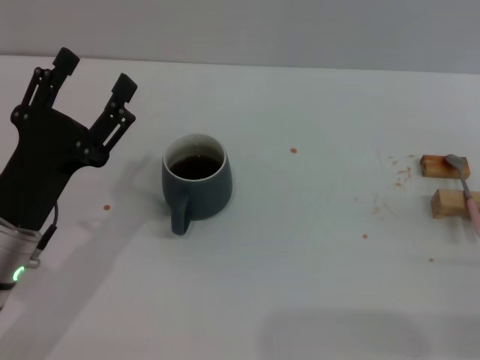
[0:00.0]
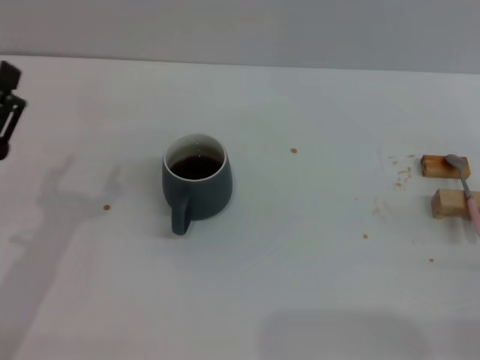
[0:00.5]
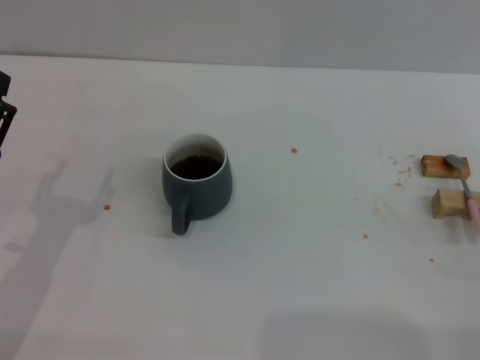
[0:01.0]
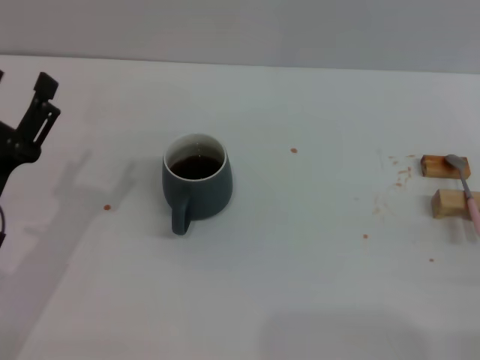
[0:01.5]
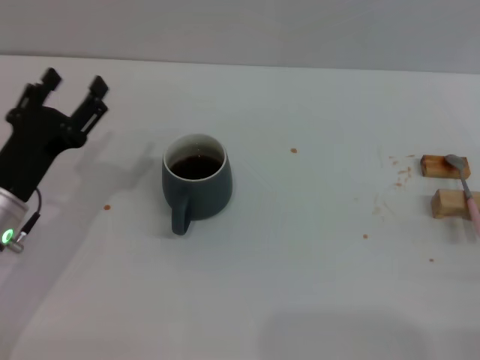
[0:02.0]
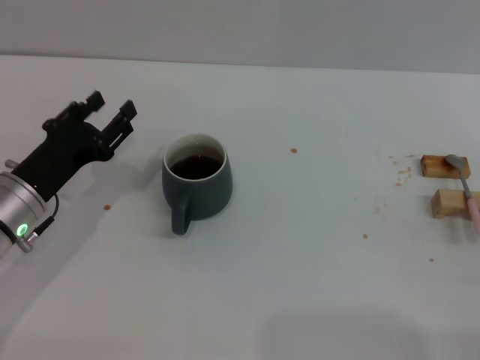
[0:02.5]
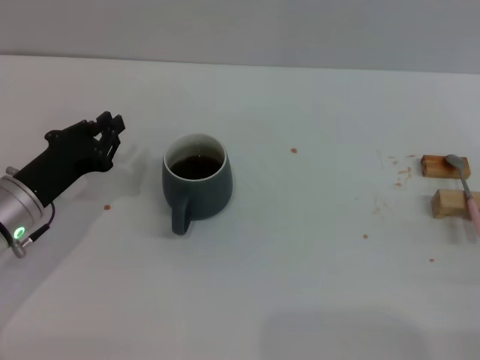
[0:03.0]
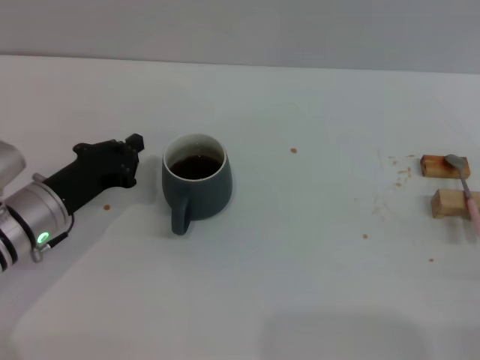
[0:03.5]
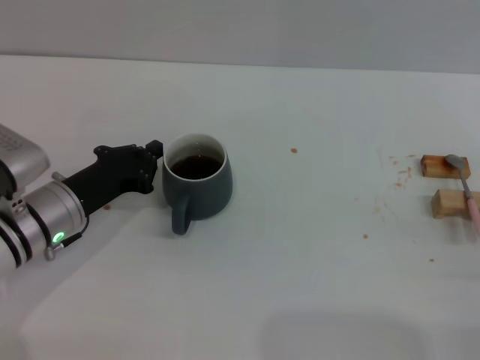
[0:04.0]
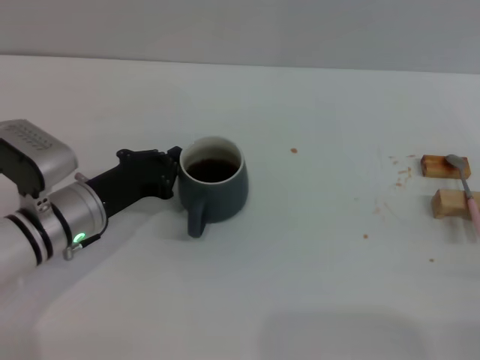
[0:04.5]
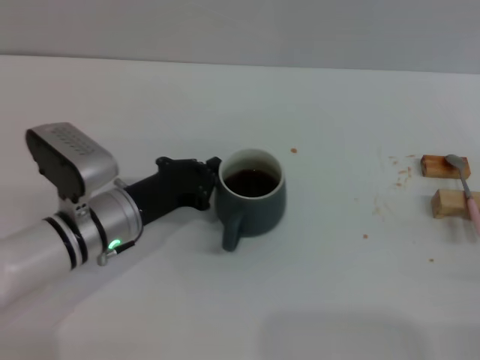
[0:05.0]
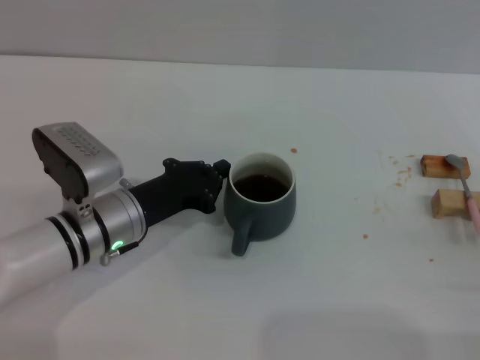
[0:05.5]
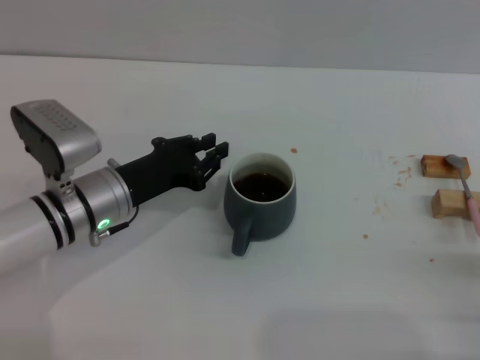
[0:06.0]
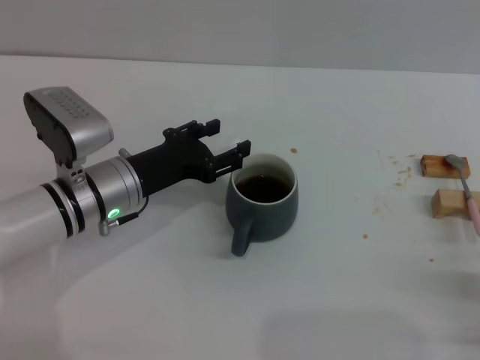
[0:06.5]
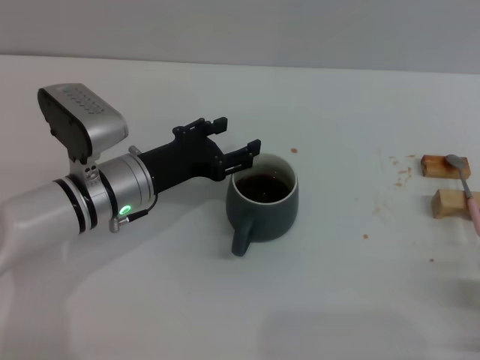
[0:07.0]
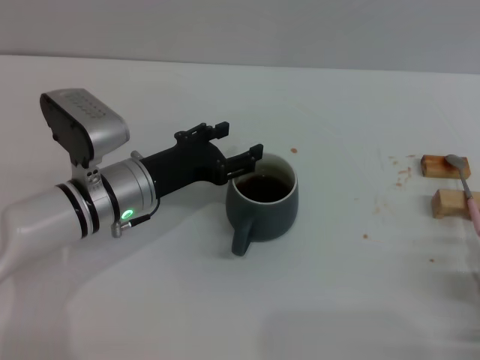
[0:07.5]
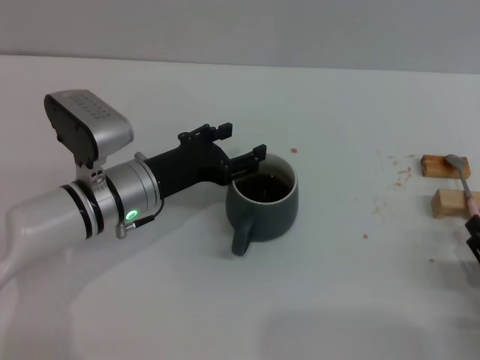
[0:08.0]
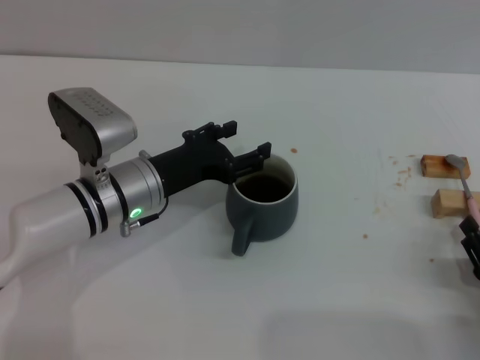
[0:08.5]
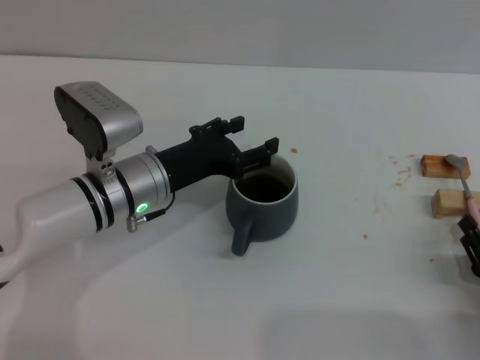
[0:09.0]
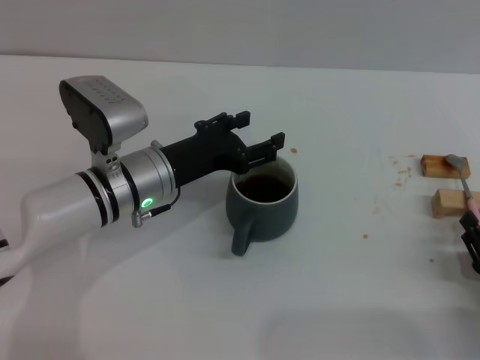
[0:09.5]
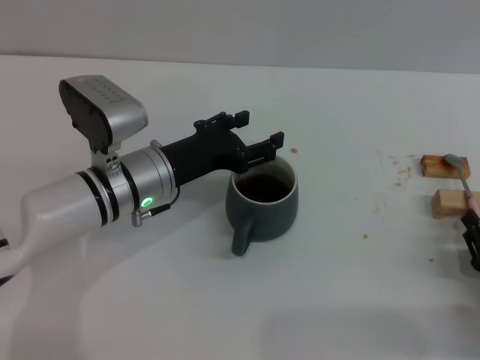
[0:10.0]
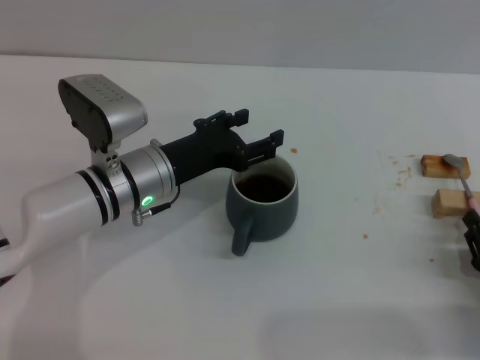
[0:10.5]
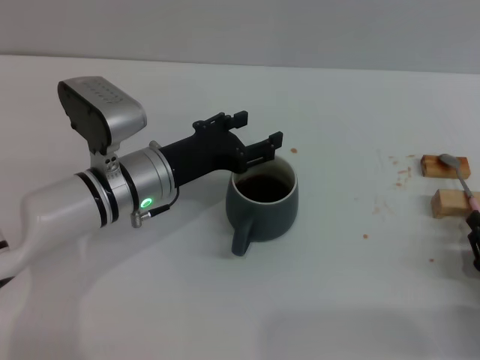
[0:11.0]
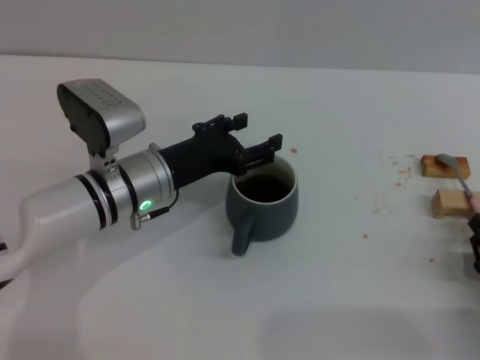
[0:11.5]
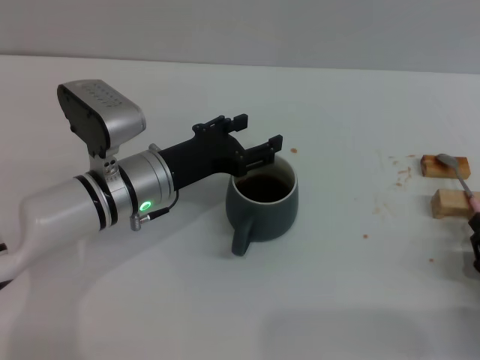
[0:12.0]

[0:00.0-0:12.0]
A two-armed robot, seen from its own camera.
Task of the whole recording: Move the grey cup to the center, lift the pink spoon, stir it three times in the cup, and put the spoon into the cup.
Step, 0:00.0 to 0:06.0: Move the cup with coffee to the center of view with the left gripper.
0:00.0 to 0:02.0: The left gripper ends up roughly 5 cm from where it was.
0:02.0 to 0:04.0: The left gripper shifts by about 5 cm, and closes up.
0:06.0 to 0:08.0: The left gripper opens its fingers.
0:08.0 to 0:10.0: The right gripper closes.
0:10.0 to 0:12.0: Neither gripper changes place.

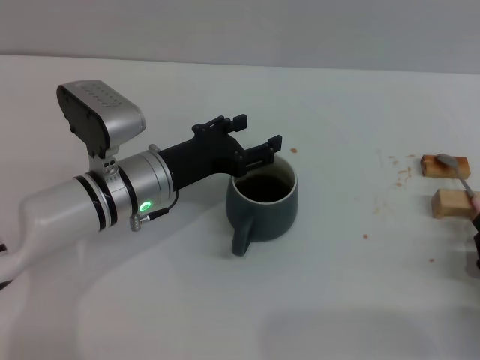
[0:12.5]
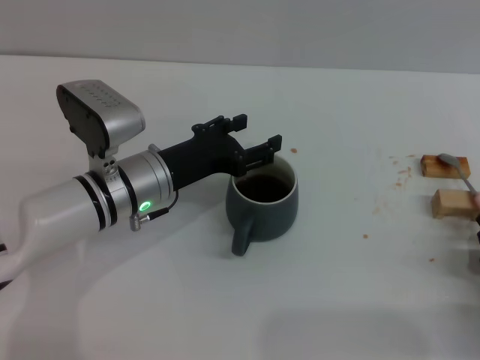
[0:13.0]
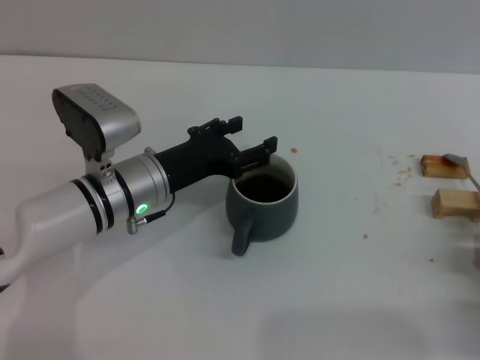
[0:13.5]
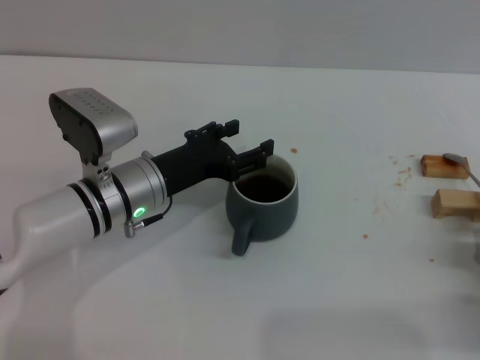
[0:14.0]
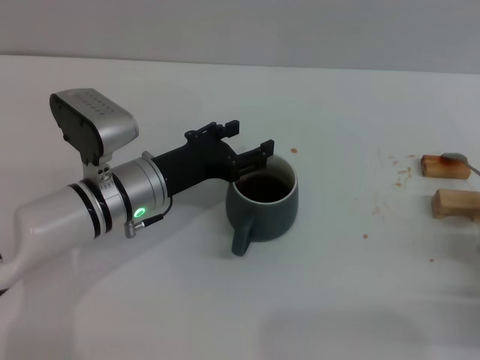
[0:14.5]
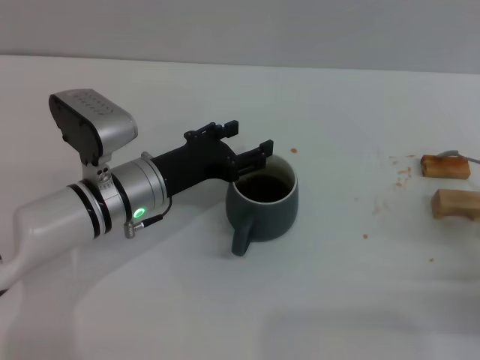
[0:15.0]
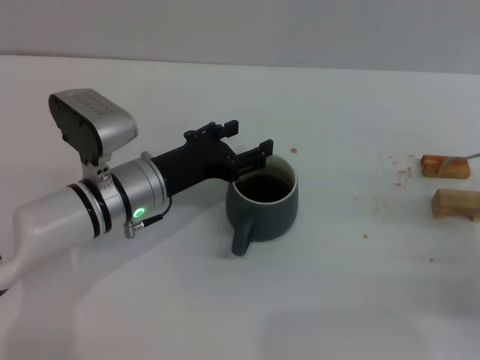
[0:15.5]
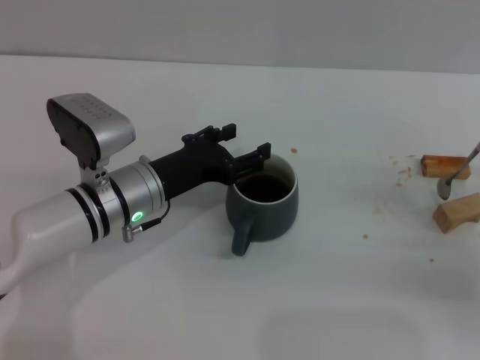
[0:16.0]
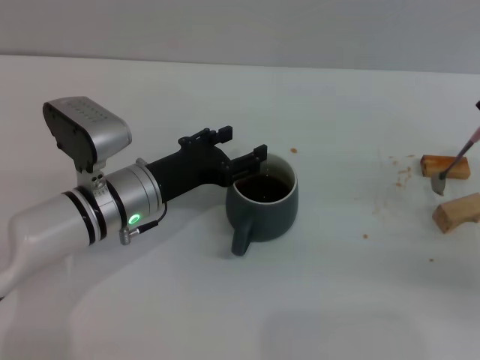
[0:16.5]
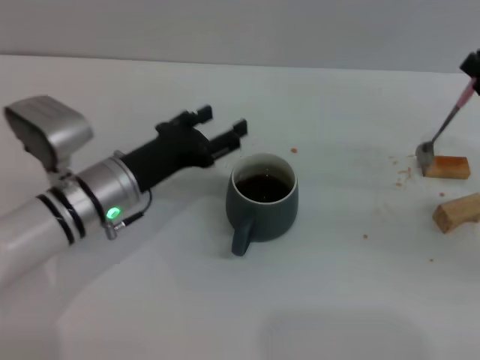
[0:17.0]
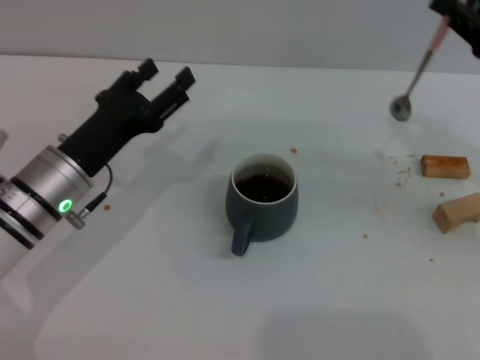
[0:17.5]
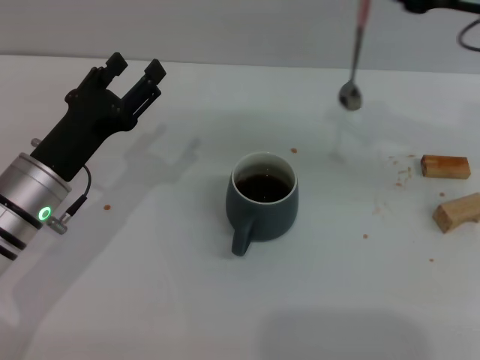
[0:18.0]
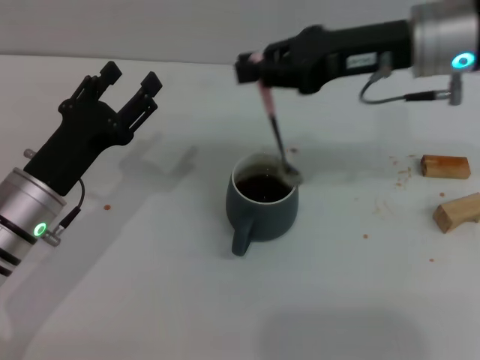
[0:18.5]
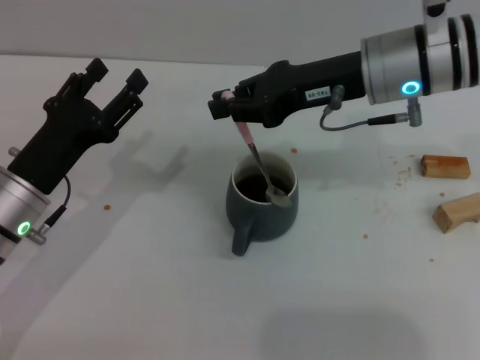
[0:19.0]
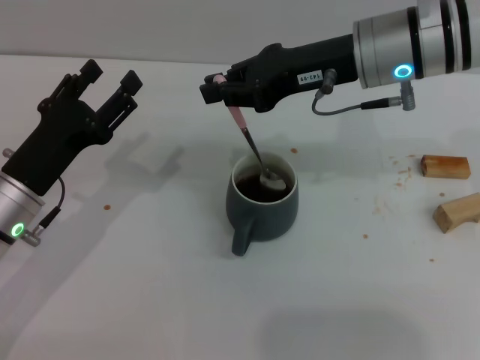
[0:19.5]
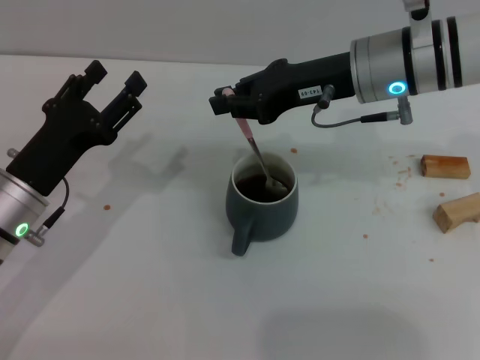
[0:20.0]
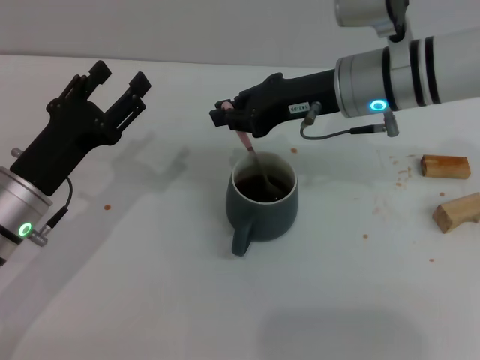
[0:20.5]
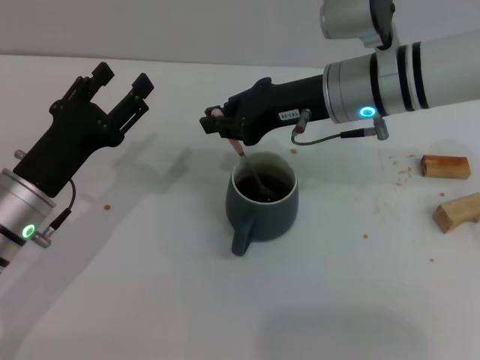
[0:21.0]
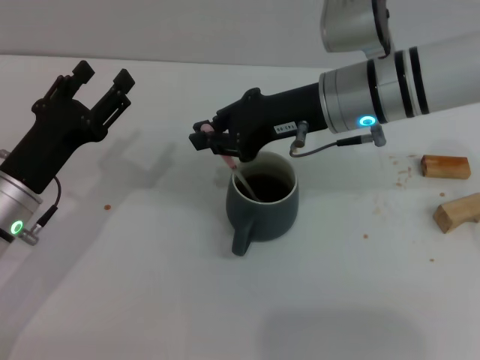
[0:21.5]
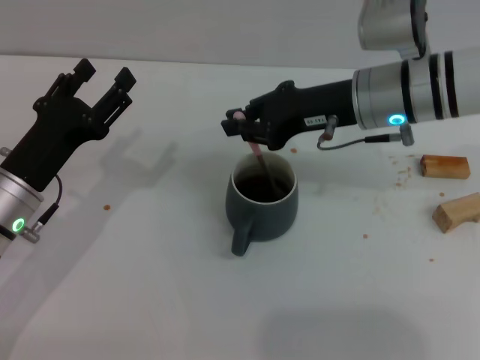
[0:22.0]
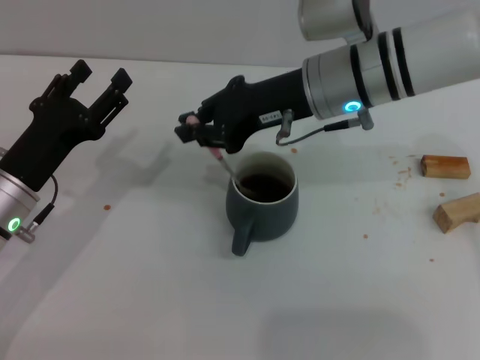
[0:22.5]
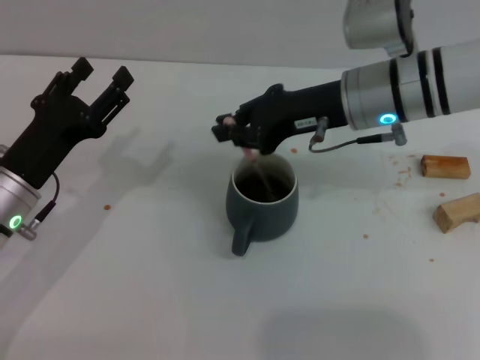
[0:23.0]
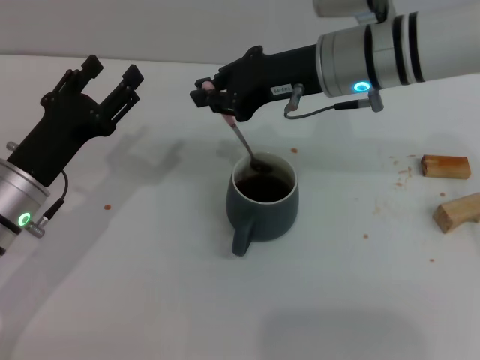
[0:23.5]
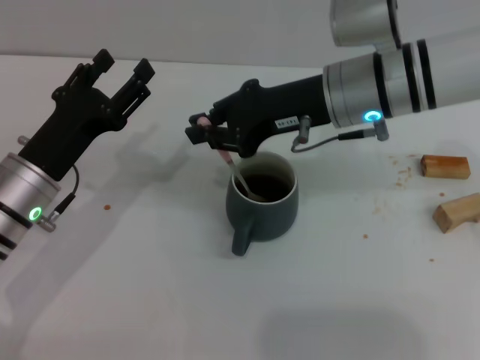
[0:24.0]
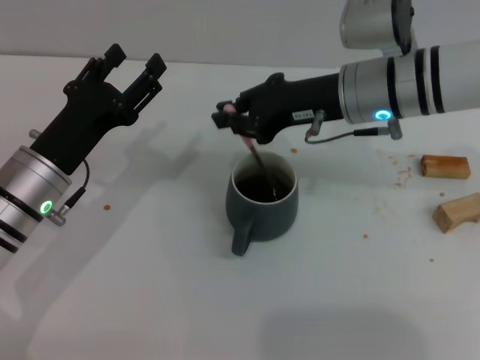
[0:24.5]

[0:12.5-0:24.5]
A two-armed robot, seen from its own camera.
Task of the whole recording: Move the grey cup to the center, lift the pink spoon, stir it three times in the cup, and put the spoon into the cup.
Step, 0:12.5 to 0:16.5: Pick up the spoon with the right gripper.
0:12.5 to 0:14.5: There are only small adjustments of the grippers.
0:14.5 to 0:16.5: The right gripper goes about 10 cm forward and upward.
0:16.5 to 0:18.5: The right gripper goes roughly 25 cm to the left, upward and forward; the left gripper is displaced to the left by about 5 cm.
0:18.5 to 0:20.5: The right gripper shifts some 5 cm downward.
0:20.5 to 0:24.5: There are only small adjustments of the grippers.

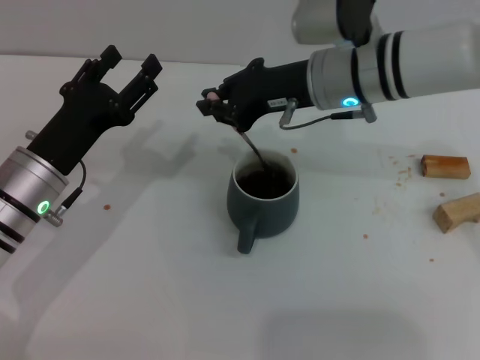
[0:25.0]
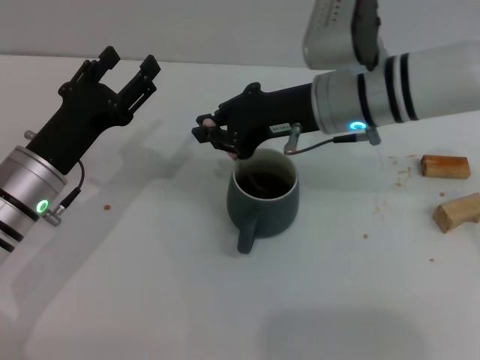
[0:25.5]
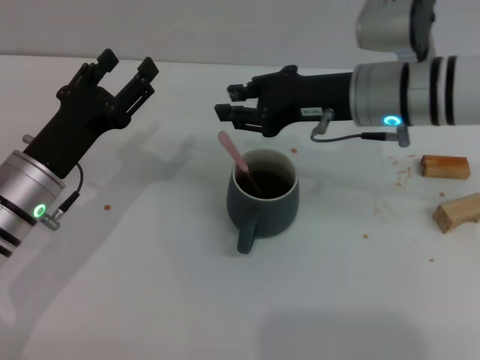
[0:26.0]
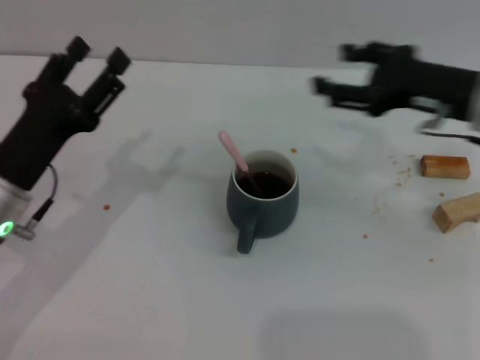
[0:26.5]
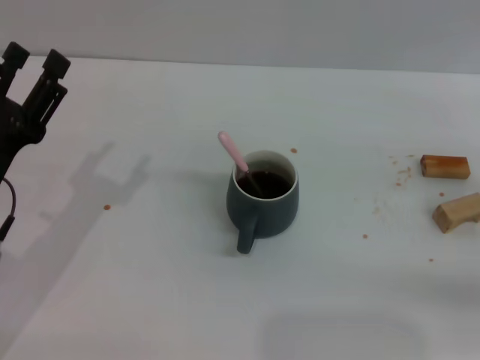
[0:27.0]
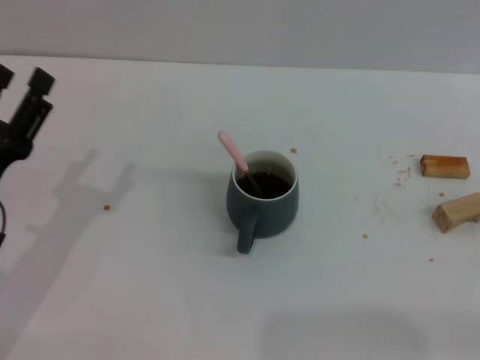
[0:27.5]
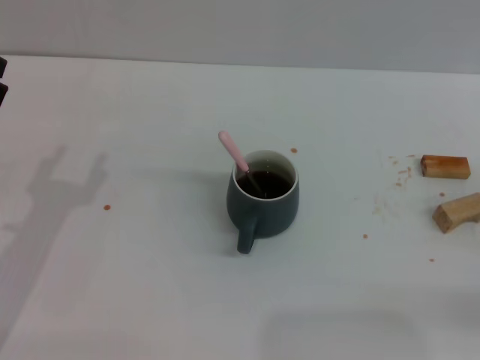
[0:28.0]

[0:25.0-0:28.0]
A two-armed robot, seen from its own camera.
Task of the whole recording: Move the grey cup to the center, lift the pink spoon, stir it three times in the cup, and put the spoon into the cup.
0:25.0 to 0:26.5: The right gripper is displaced to the right and backward by about 15 cm, and opens up.
0:26.5 to 0:28.0: The left gripper moves some 5 cm. The right gripper moves to the right, backward and downward, roughly 25 cm.
